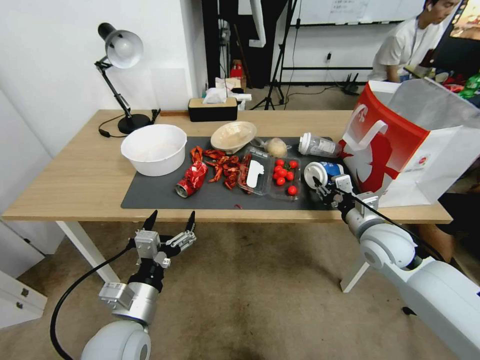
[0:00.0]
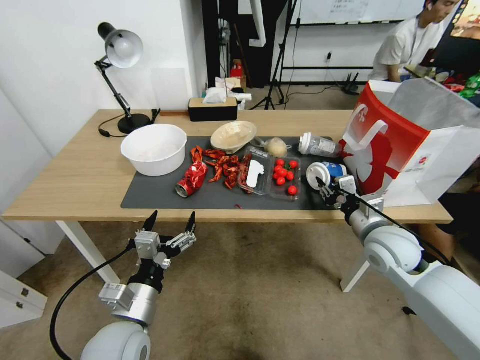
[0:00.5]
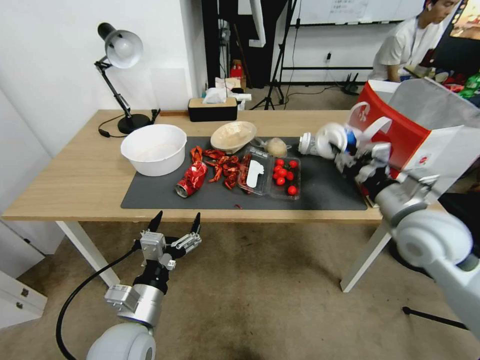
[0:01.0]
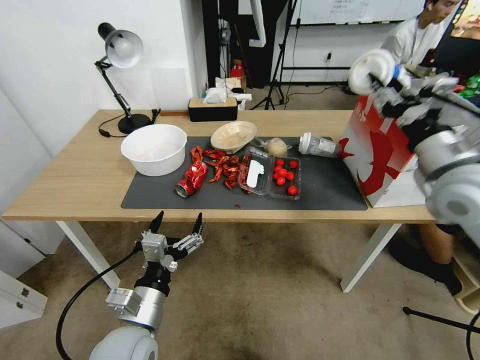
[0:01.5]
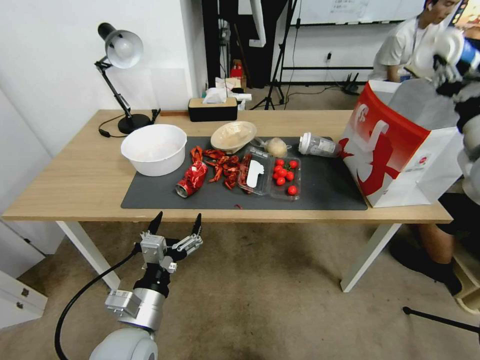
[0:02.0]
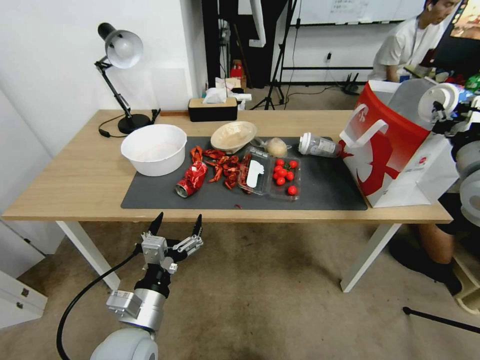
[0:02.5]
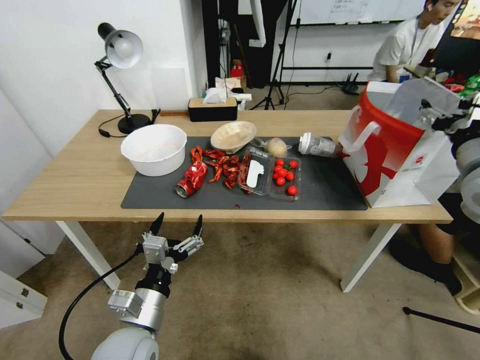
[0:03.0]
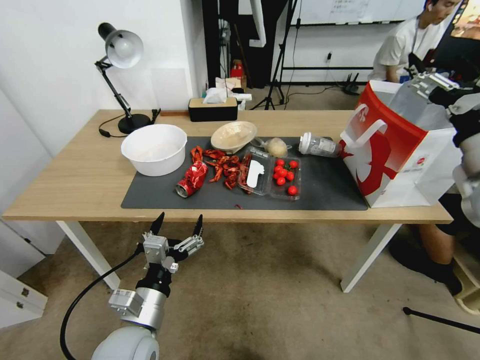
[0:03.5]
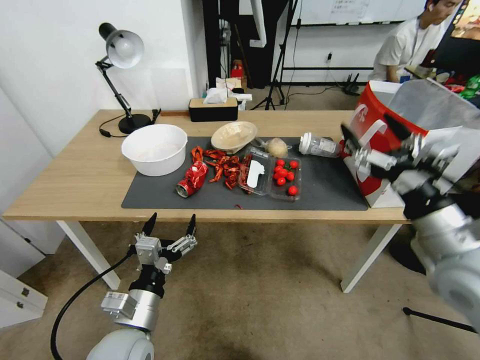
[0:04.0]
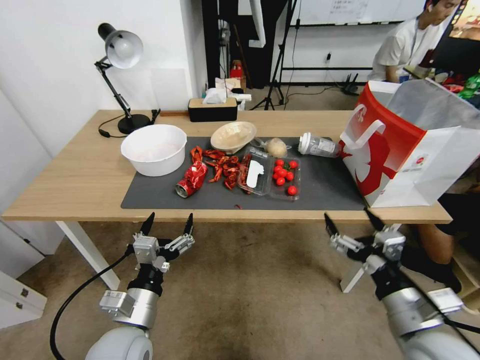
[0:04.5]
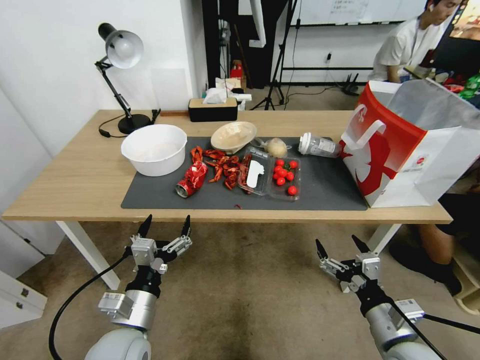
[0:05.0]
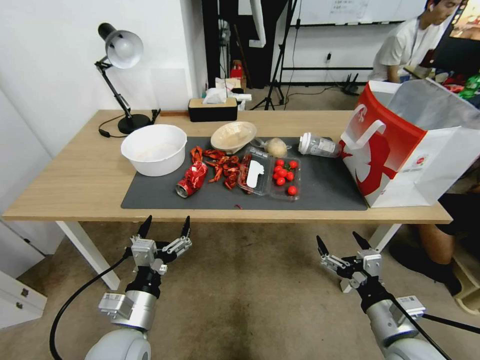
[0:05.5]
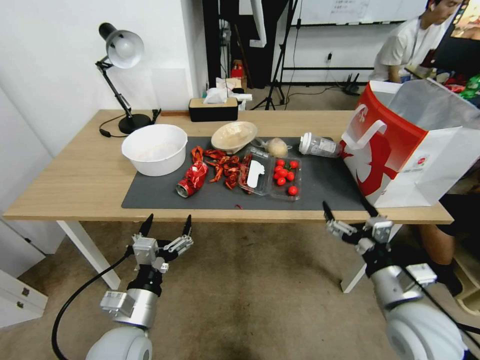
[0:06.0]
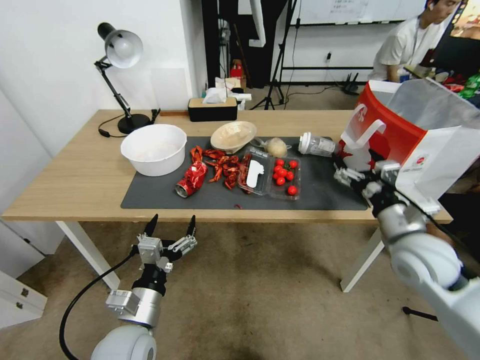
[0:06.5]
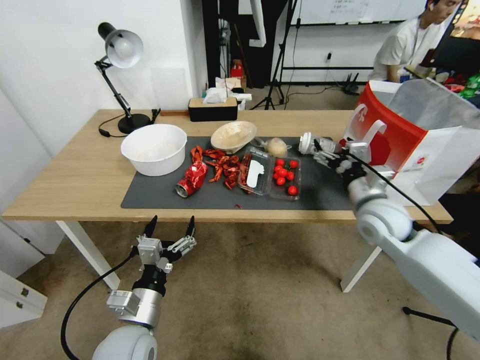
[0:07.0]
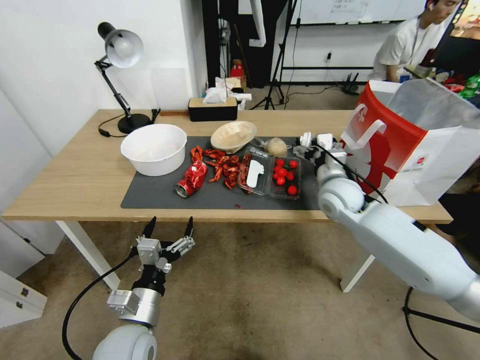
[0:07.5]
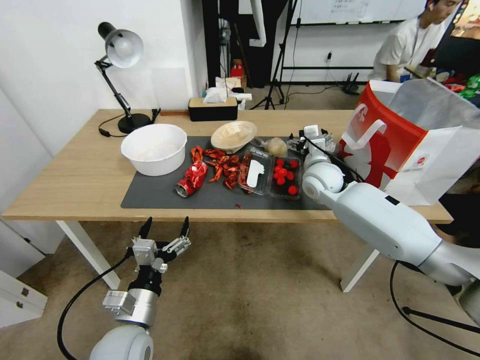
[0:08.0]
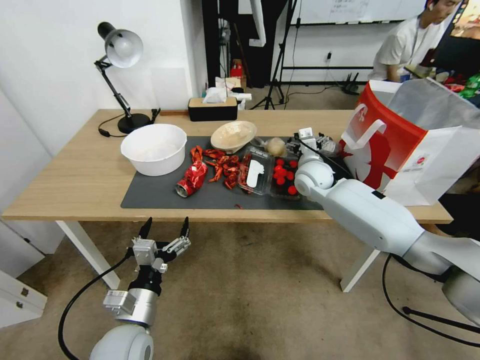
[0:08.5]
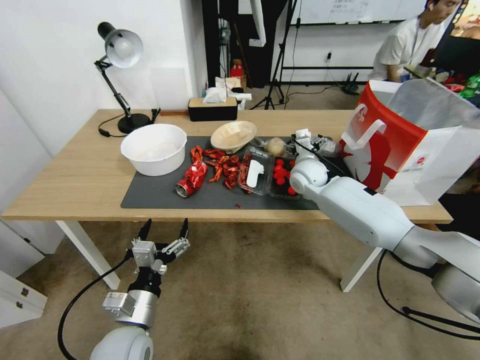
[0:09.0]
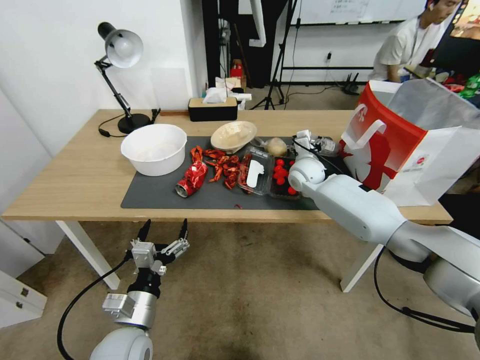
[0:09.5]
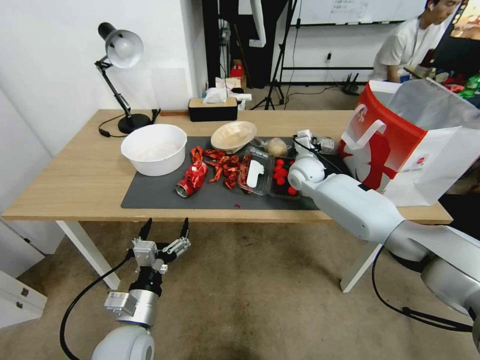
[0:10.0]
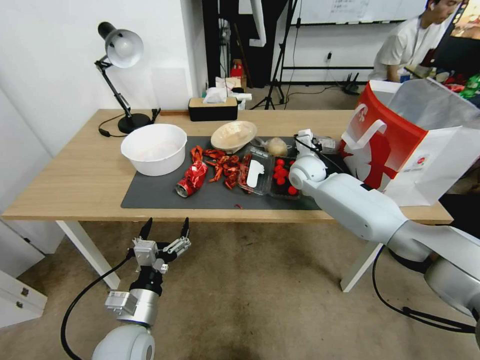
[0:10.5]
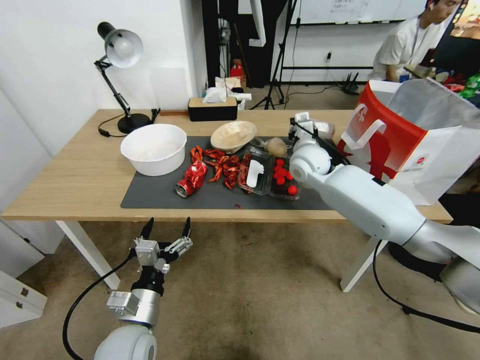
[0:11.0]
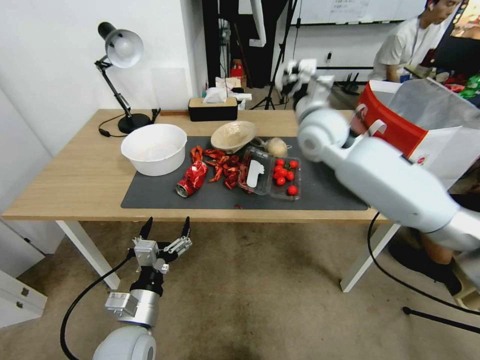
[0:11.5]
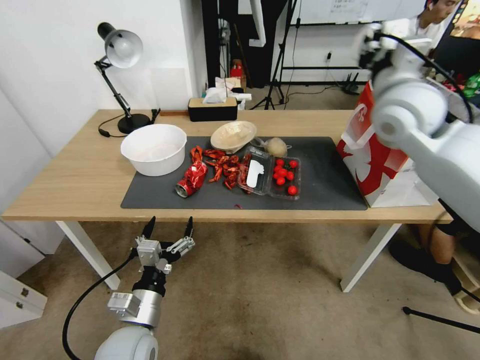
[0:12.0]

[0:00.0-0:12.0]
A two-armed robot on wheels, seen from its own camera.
0:00.0 to 0:02.0: The right gripper travels upward by roughly 25 cm.
0:02.0 to 0:04.0: The right gripper goes about 15 cm backward, downward and to the left, and opens.
0:04.0 to 0:06.0: The right gripper travels downward by about 15 cm.
0:06.0 to 0:08.0: The right gripper heads forward, covering about 30 cm.
0:08.0 to 0:10.0: The right gripper is displaced forward by roughly 5 cm, and closes.
0:10.0 to 0:12.0: The right gripper heads upward and backward, covering approximately 30 cm.

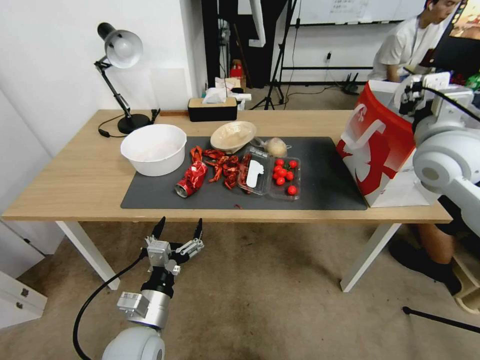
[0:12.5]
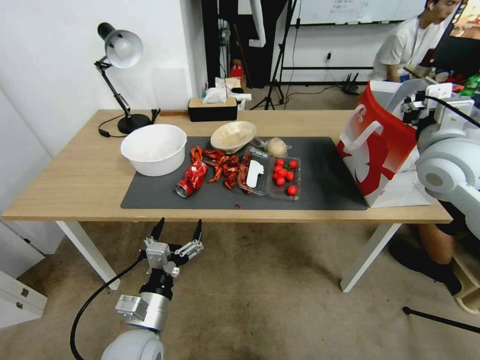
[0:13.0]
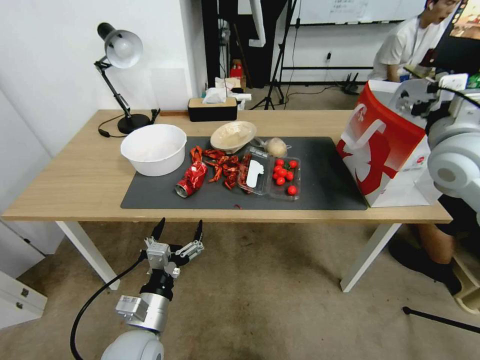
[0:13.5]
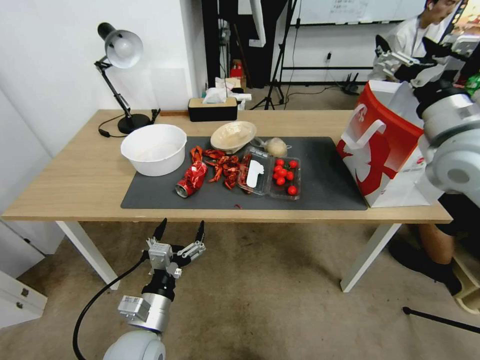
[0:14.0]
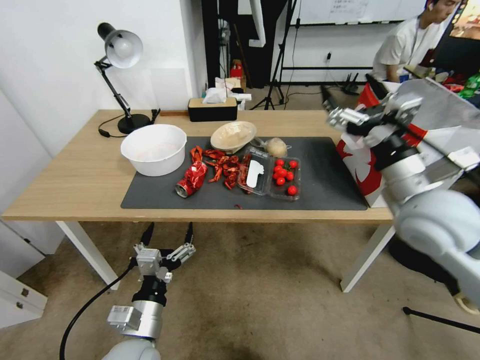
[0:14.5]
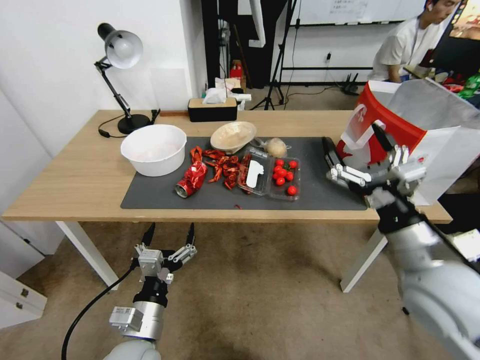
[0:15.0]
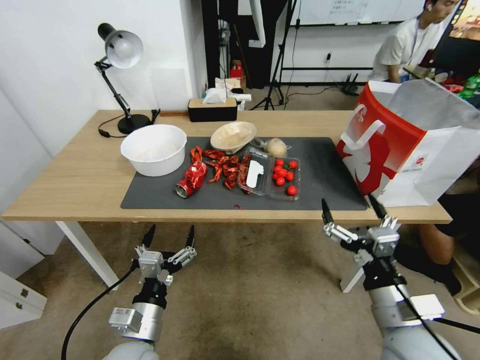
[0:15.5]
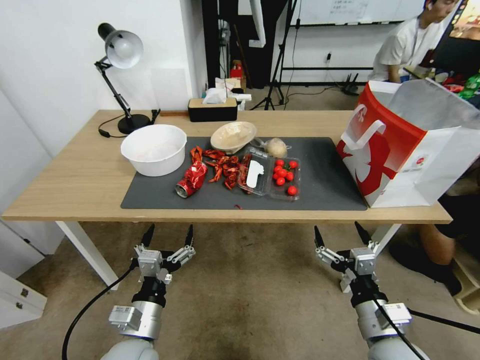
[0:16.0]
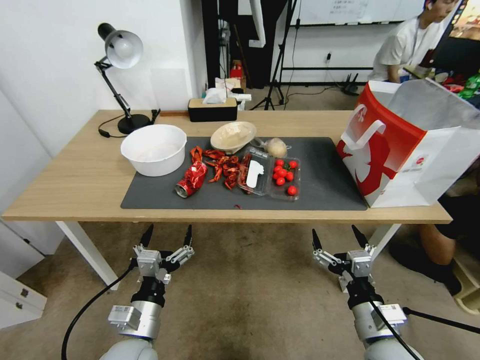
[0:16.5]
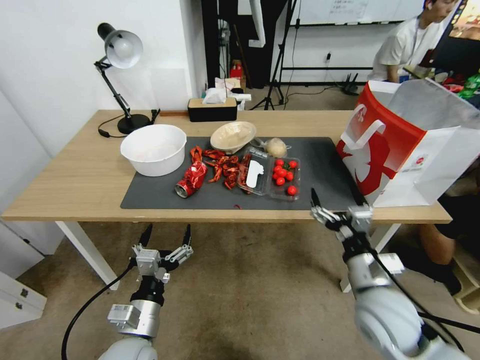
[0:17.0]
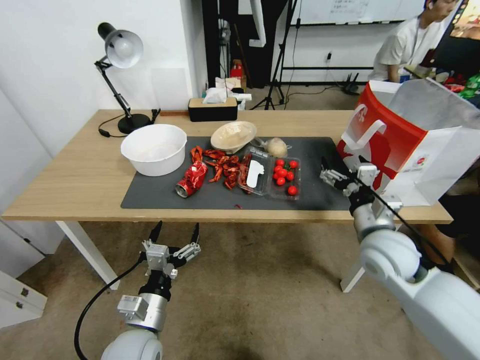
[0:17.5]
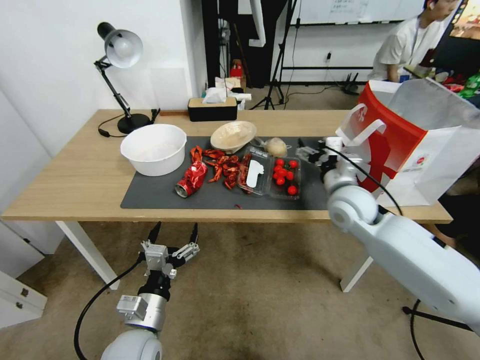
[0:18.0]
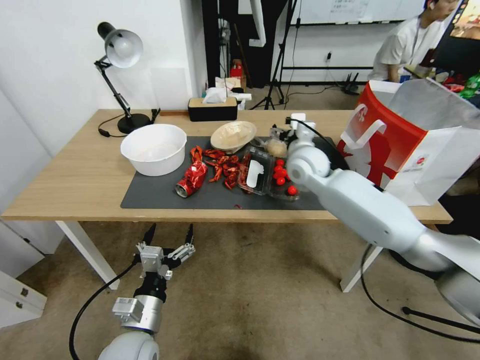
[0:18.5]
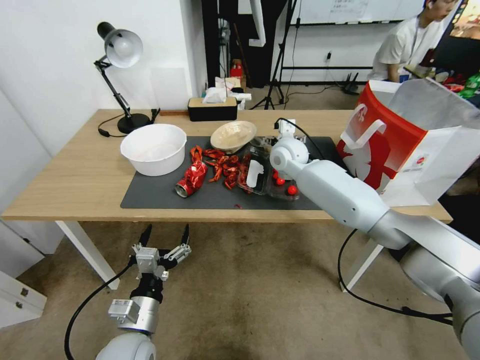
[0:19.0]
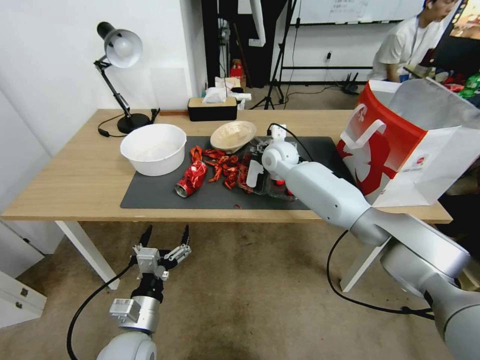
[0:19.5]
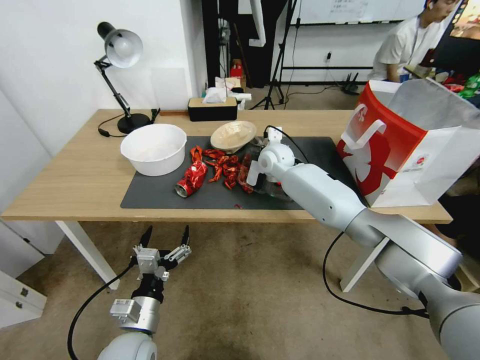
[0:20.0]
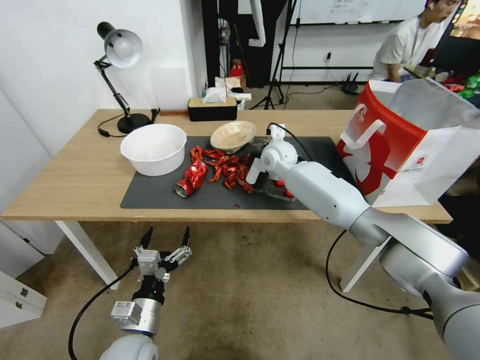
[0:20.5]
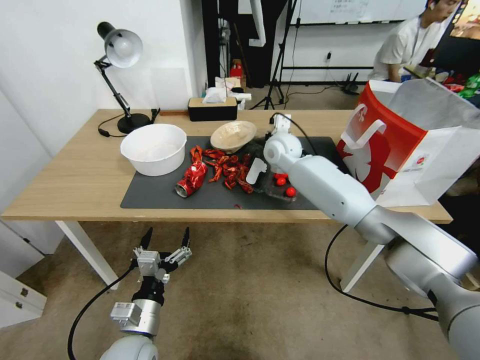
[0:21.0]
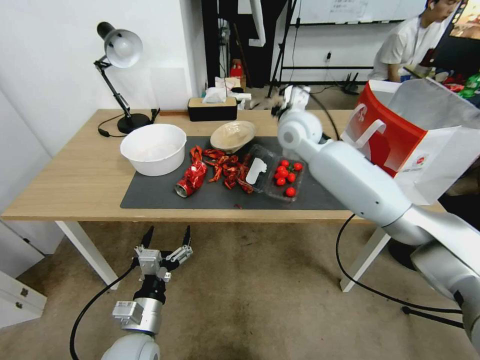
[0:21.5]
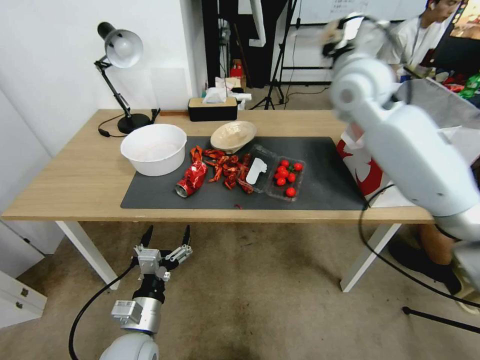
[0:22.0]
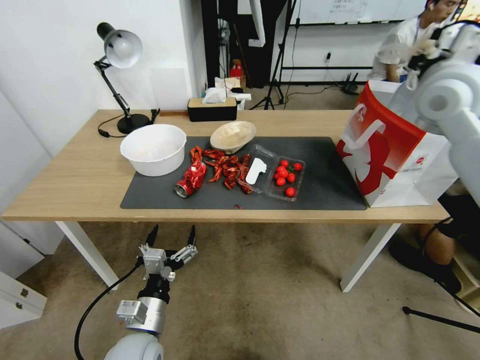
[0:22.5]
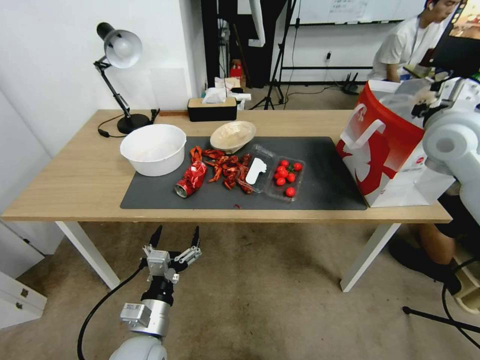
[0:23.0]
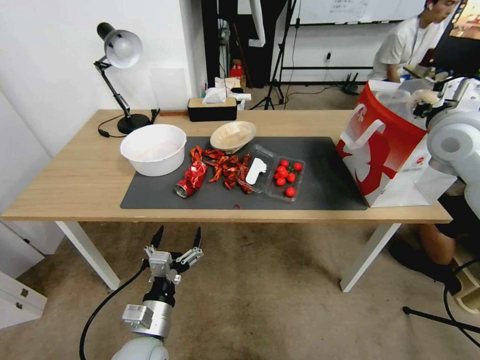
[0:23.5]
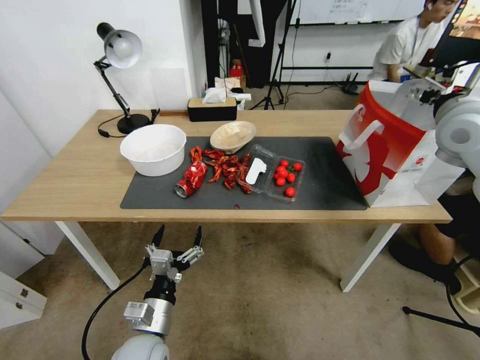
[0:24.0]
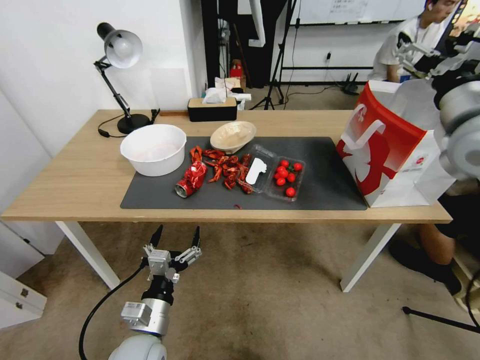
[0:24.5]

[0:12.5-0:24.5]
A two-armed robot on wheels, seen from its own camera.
0:12.5 to 0:14.5: The right gripper heads backward and to the left, covering roughly 10 cm, and opens.
0:14.5 to 0:16.5: The right gripper shifts approximately 30 cm downward and backward.
0:16.5 to 0:18.5: The right gripper travels forward and upward by approximately 40 cm.
0:18.5 to 0:20.5: The right gripper goes about 5 cm forward, and closes its fingers.
0:20.5 to 0:22.5: The right gripper shifts about 35 cm upward, to the right and backward.
0:22.5 to 0:24.5: The right gripper moves backward, roughly 10 cm, and opens up.

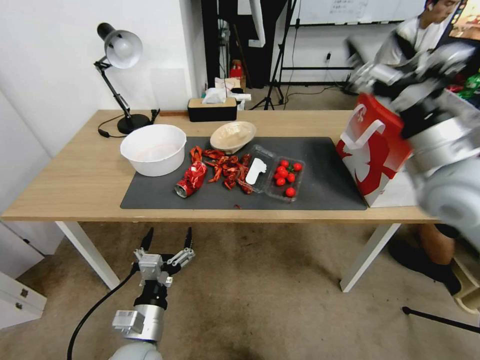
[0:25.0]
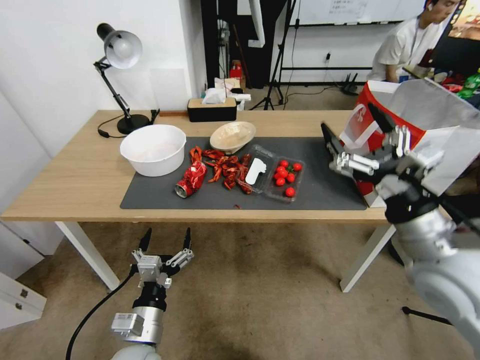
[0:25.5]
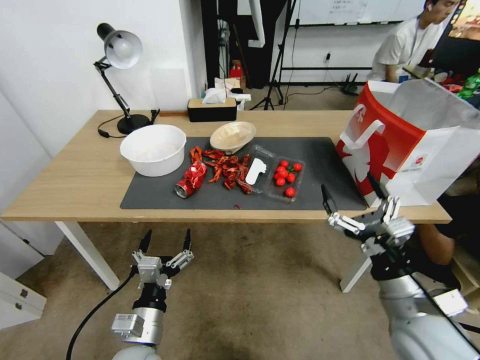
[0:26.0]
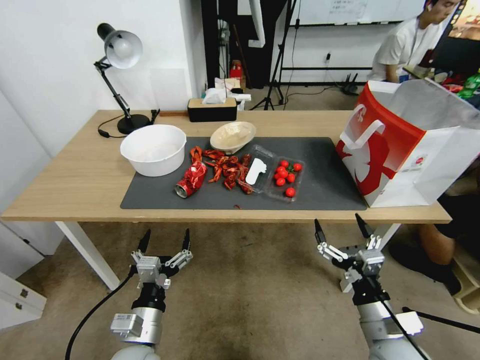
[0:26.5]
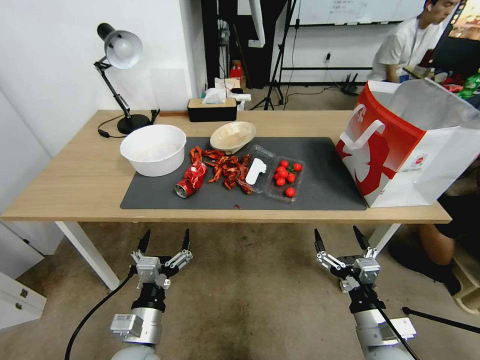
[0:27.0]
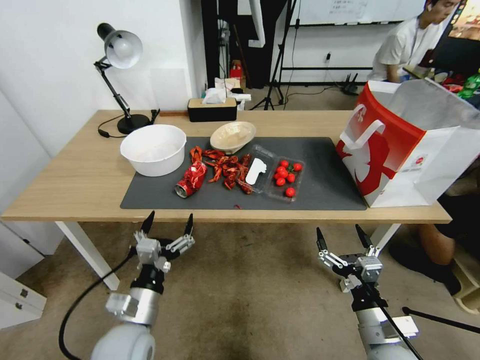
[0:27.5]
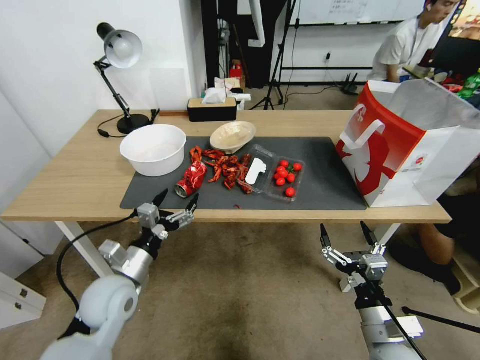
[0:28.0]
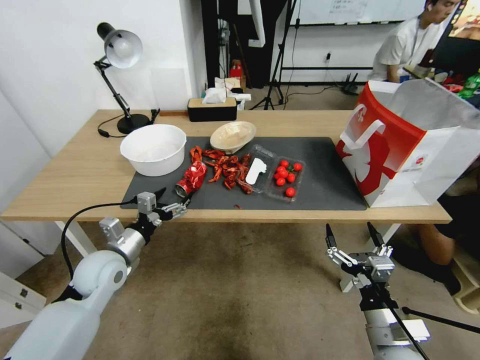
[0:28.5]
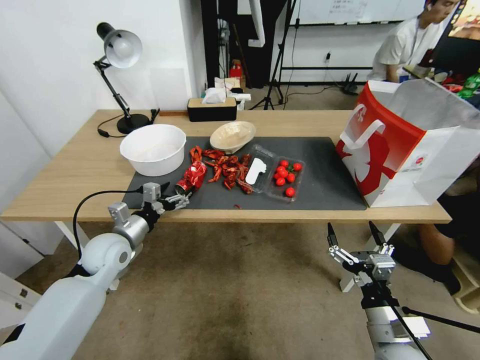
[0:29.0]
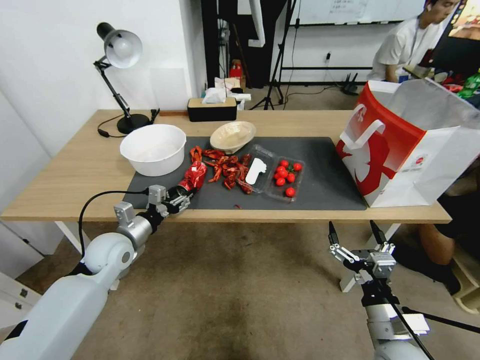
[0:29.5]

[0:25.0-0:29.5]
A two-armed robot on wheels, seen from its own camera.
0:25.0 to 0:27.0: The right gripper moves downward and backward, approximately 35 cm.
0:27.0 to 0:29.5: The left gripper heads forward and to the left, covering approximately 25 cm, and closes up.
